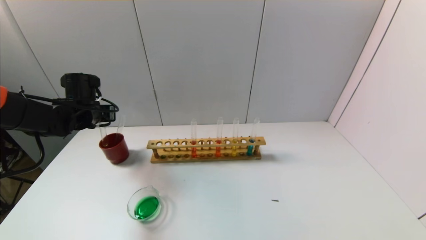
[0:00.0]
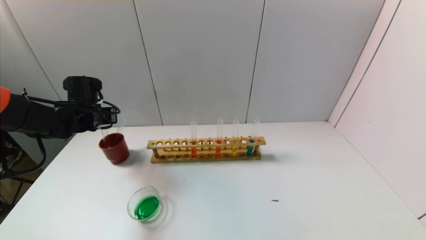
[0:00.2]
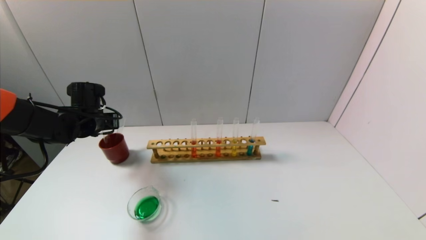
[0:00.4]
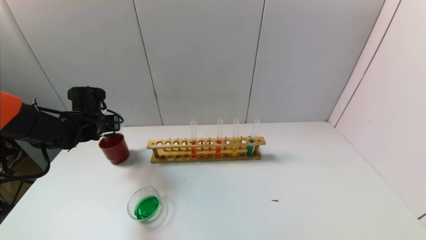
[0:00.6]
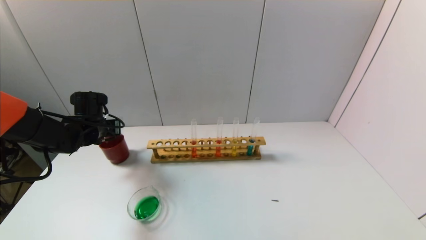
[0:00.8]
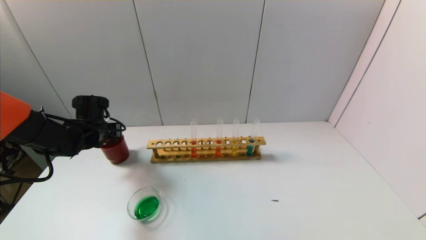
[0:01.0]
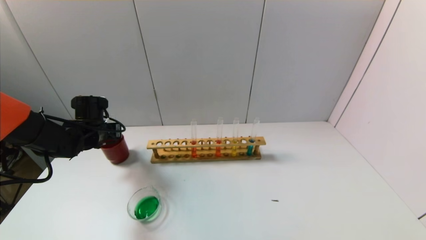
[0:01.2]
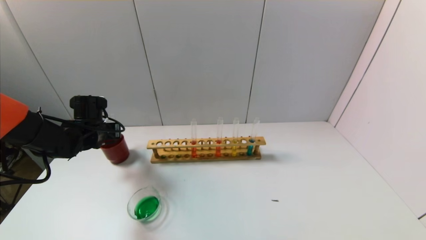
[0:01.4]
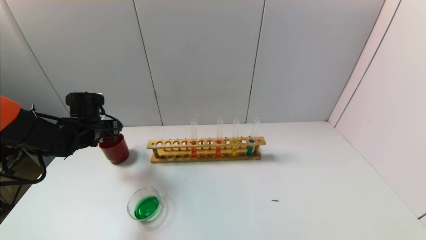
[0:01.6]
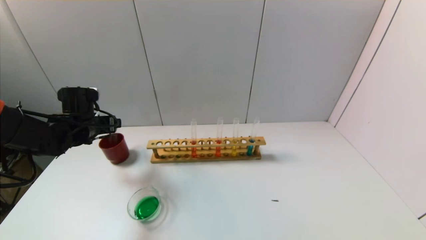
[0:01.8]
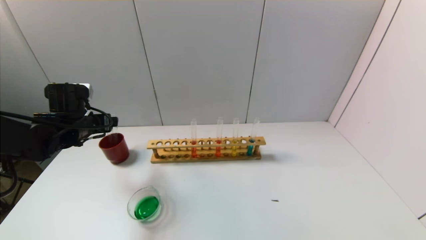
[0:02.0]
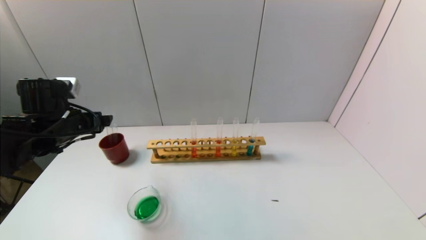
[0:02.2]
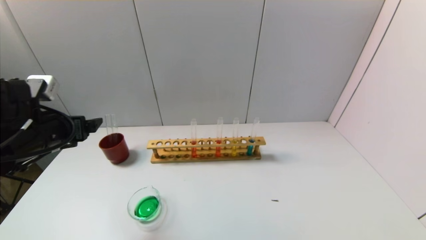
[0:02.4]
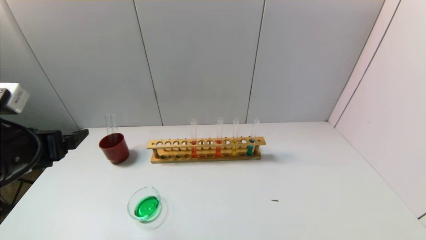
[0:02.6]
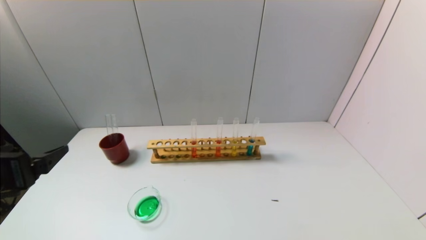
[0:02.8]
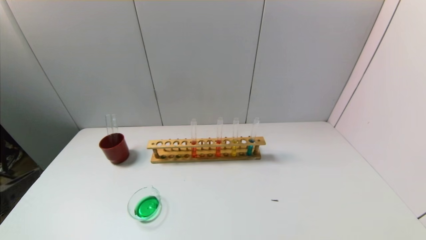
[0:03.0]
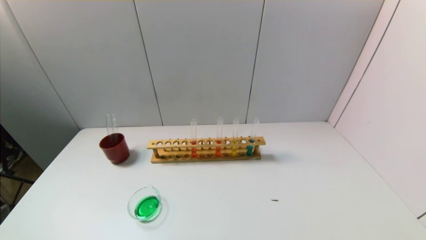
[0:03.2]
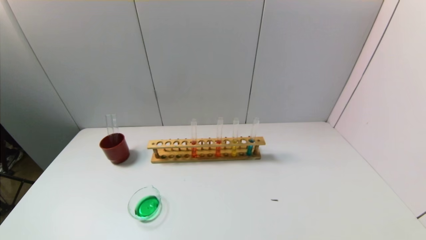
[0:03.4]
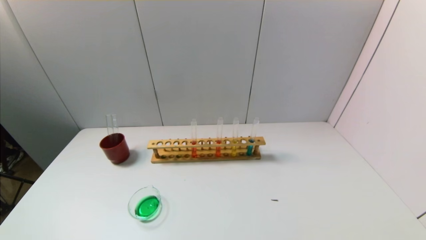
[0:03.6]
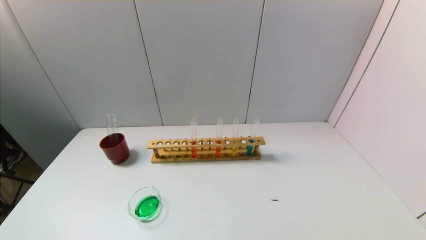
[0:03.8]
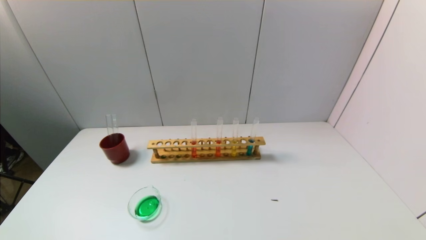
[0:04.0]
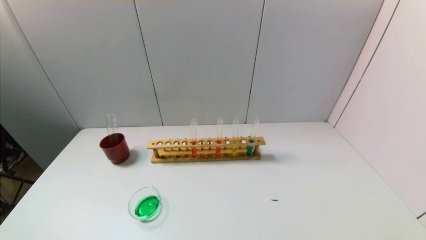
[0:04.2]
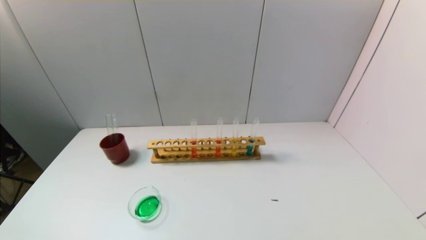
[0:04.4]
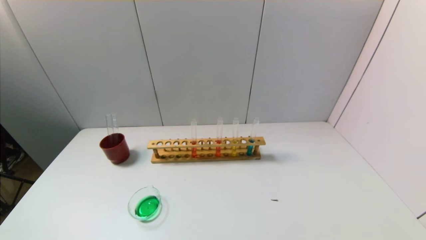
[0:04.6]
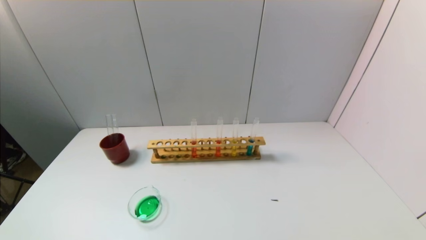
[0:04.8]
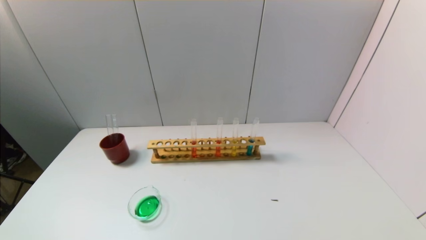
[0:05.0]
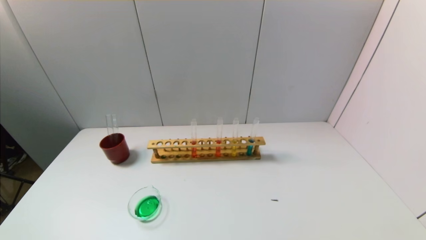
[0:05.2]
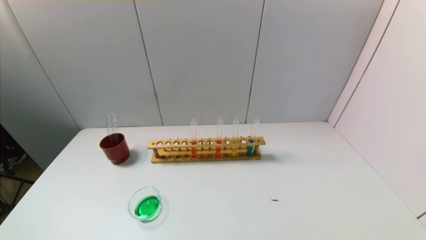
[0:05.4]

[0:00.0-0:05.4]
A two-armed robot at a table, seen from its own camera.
Task of the whole recording: pick up the test tube with yellow pigment and the test tube with blue pigment by grippers and pour them into the beaker.
0:00.0 to 0:01.4: The left gripper changes place by some 5 cm, and opens.
0:01.4 to 0:02.8: The left gripper is displaced backward by some 25 cm, and opens up.
0:02.8 to 0:04.0: The left gripper heads backward and downward, covering about 20 cm.
